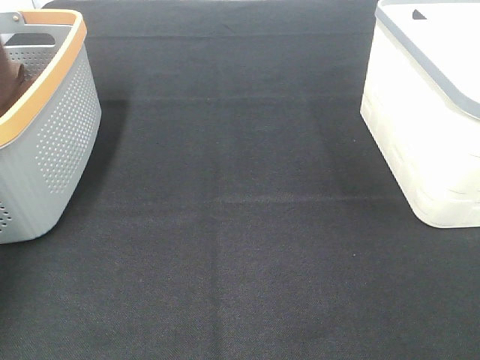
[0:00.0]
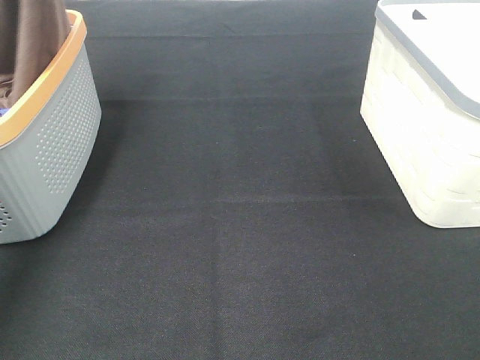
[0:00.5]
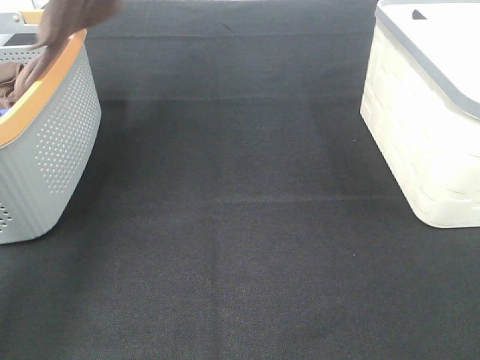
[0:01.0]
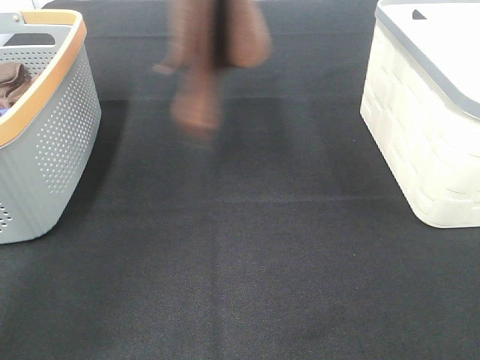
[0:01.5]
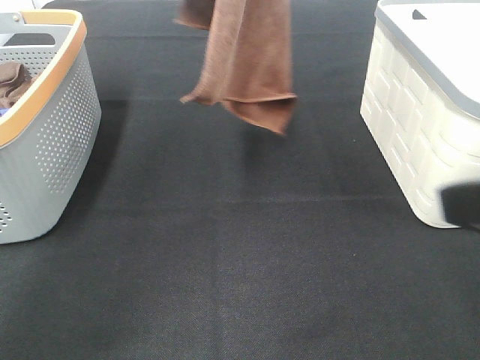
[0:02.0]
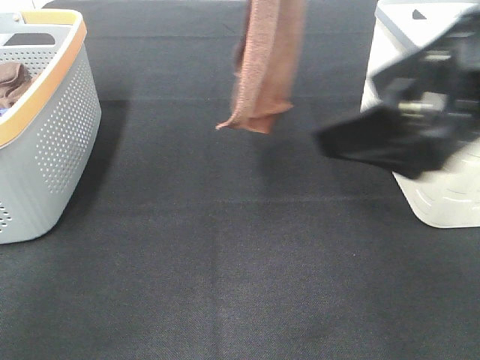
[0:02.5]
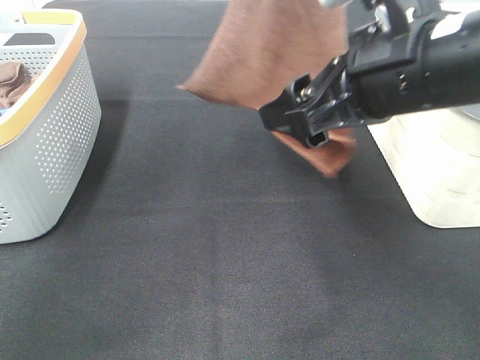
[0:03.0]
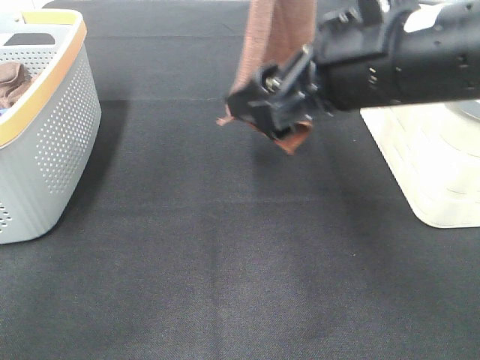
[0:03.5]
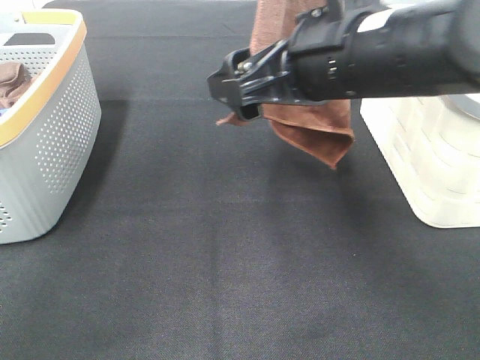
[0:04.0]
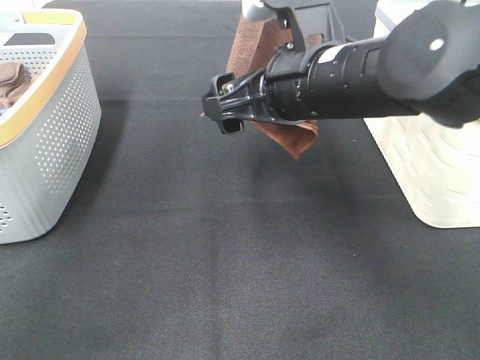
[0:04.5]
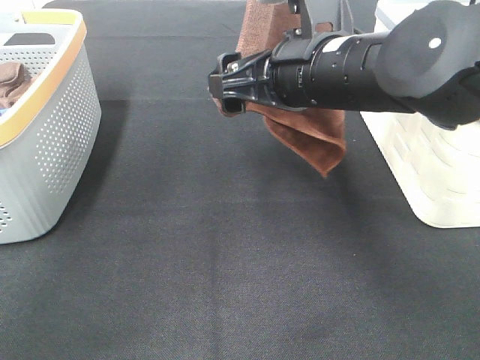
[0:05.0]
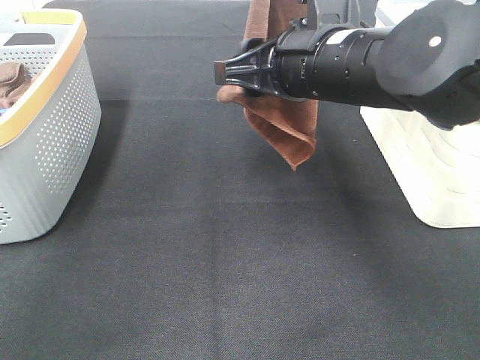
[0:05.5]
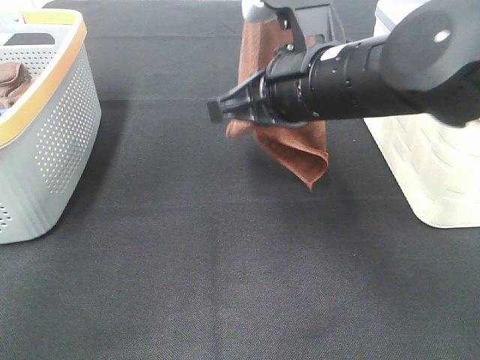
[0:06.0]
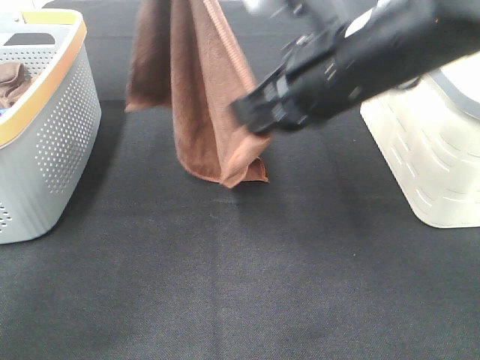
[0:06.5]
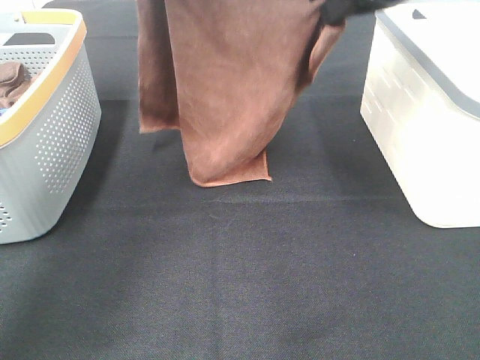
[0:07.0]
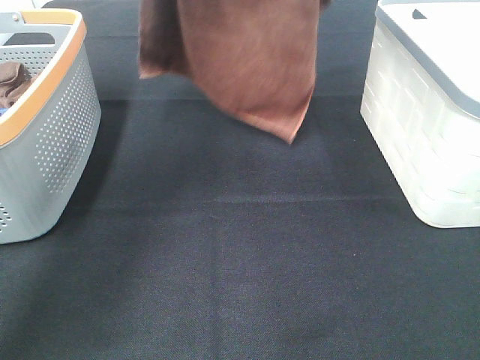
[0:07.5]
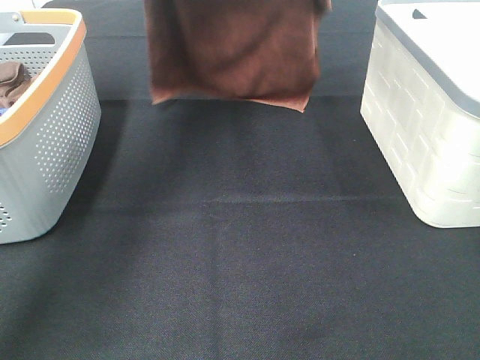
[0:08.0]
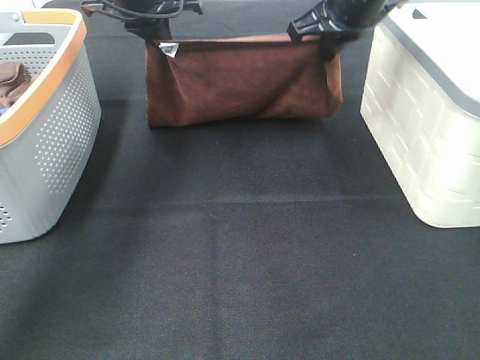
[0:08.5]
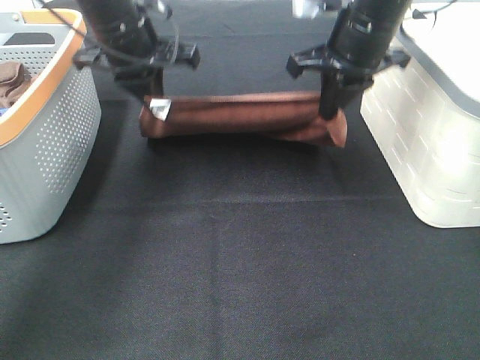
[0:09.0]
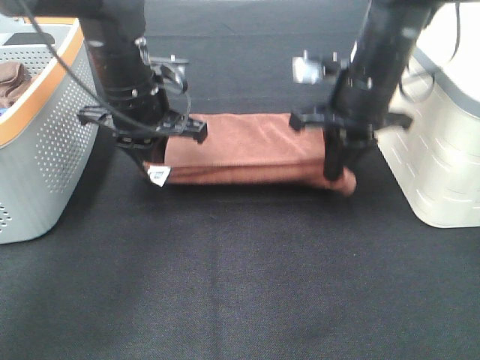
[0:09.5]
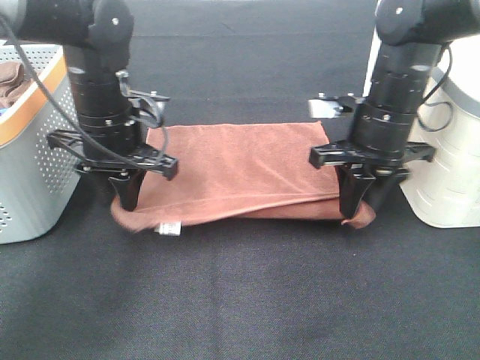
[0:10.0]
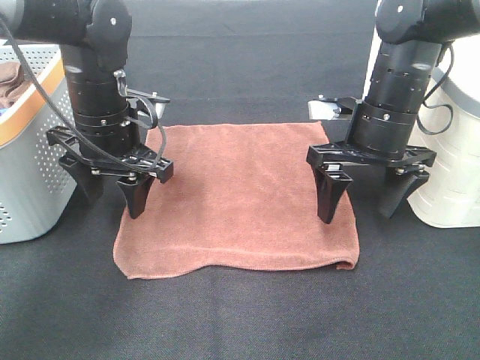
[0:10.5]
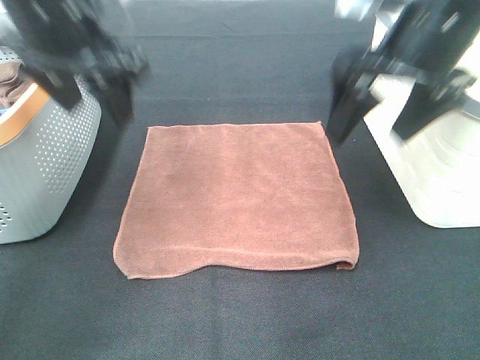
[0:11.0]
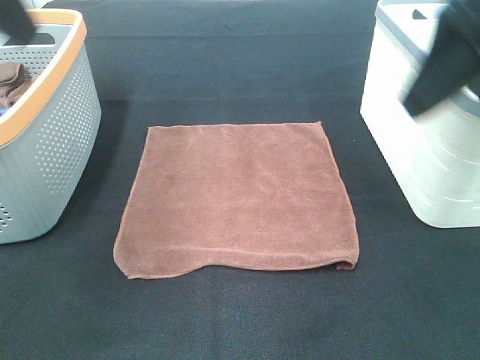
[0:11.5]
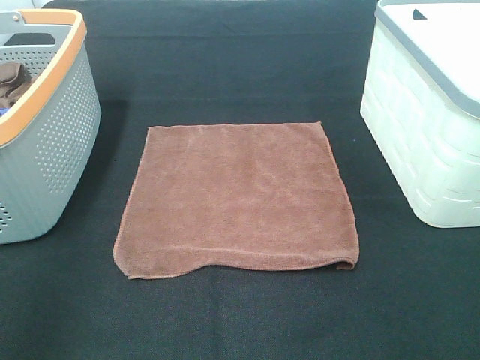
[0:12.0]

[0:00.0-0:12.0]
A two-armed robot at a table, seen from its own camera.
Task of the whole recording: Remove the towel and place it.
Step, 0:00.0 to 0:03.0: Right hand: grab a corner of the brown towel and straighten it.
Step, 0:03.5 to 0:05.5: Right hand: spread the brown towel flat on the table.
0:00.0 to 0:02.0: The left gripper moves to the right, approximately 30 cm, while the right gripper moves forward and to the left, approximately 15 cm.
0:02.0 to 0:04.0: The right gripper is displaced forward and to the left by about 20 cm.
0:04.0 to 0:06.0: The right gripper closes its fingers.
0:06.0 to 0:08.0: The right gripper moves forward, approximately 20 cm. Meanwhile the left gripper travels forward, downward and to the left by roughly 20 cm.
0:08.0 to 0:10.0: The two grippers go some 20 cm downward and backward. The right gripper opens up; the left gripper opens up.
0:10.0 to 0:12.0: The left gripper is displaced backward and to the left by some 30 cm, and opens. Meanwhile the right gripper shifts roughly 30 cm backward and upward, and opens up.
